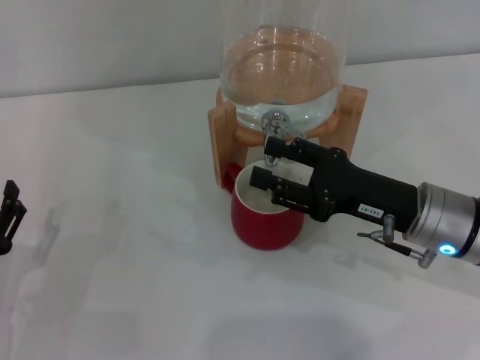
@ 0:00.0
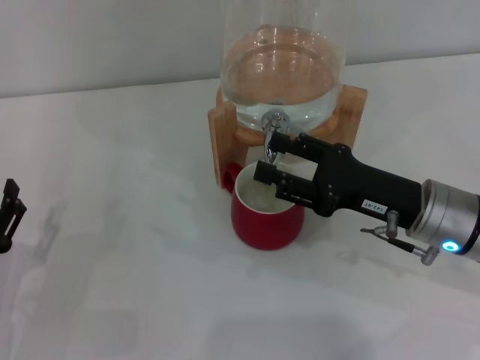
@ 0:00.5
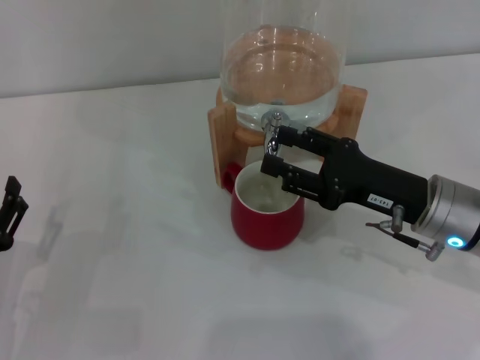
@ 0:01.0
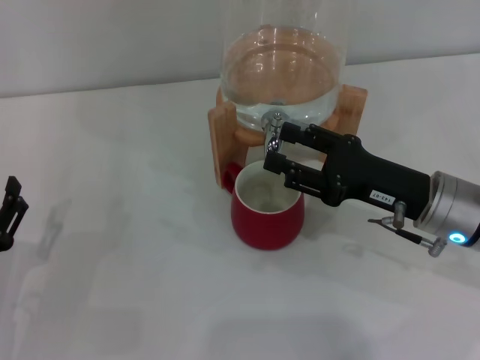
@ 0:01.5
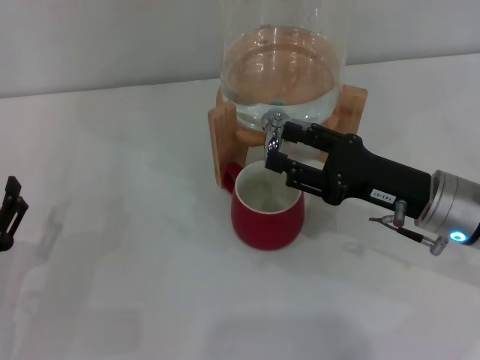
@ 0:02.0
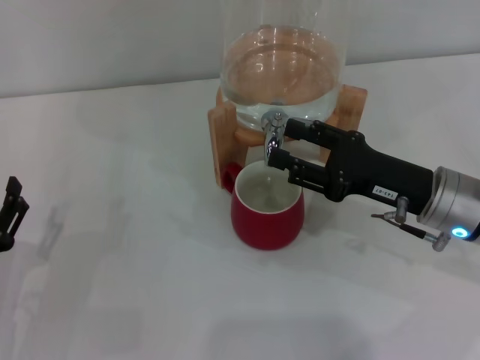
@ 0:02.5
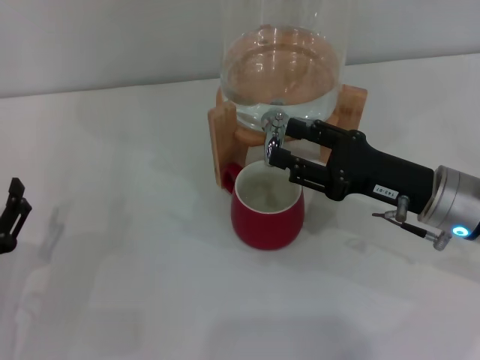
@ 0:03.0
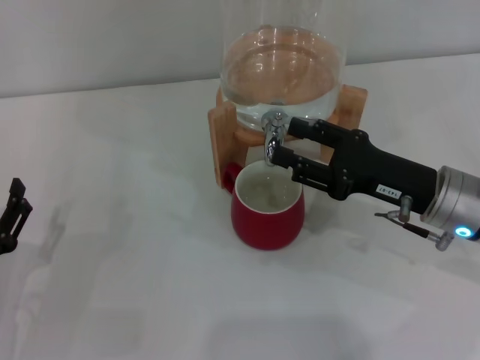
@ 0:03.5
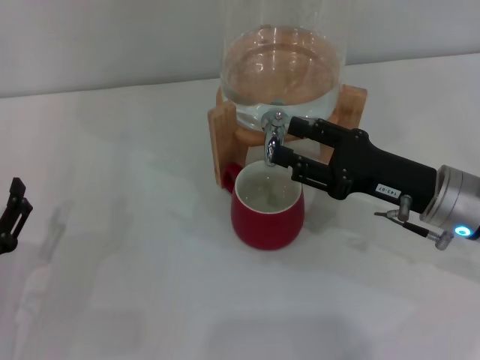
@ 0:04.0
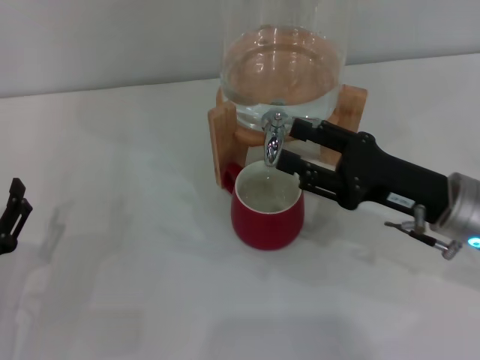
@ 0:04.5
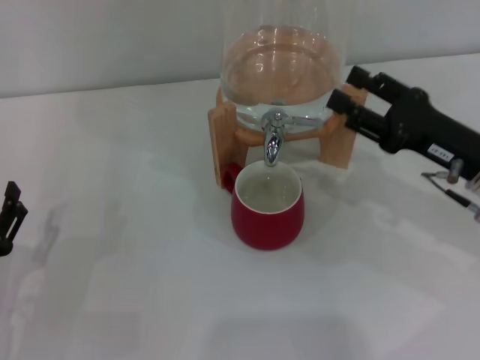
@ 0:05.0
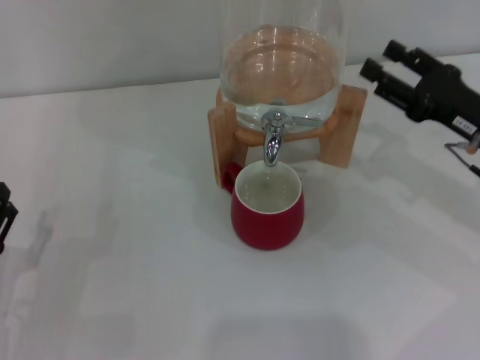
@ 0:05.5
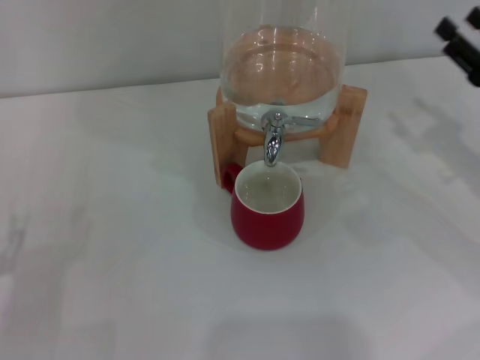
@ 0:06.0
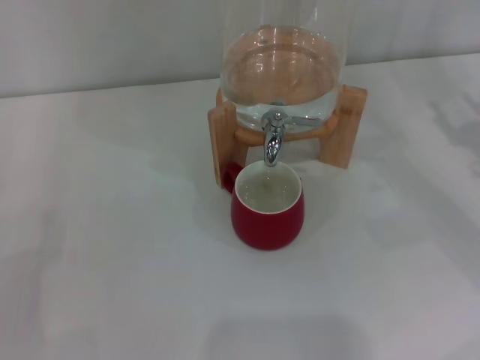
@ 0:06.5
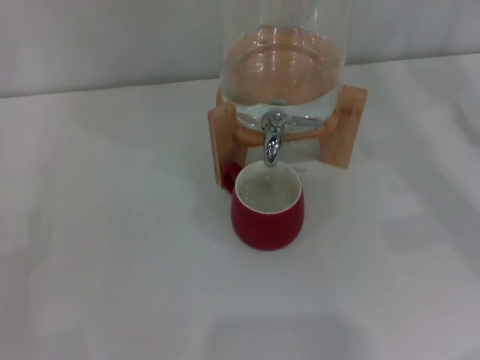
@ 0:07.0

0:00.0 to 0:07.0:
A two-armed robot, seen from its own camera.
Task of the whole recording: the left gripper pick up the red cup and place it horizontally under the faucet, the right gripper turn on the faucet to fill the cup, and then turn off the faucet.
Step, 0:00.0 to 0:04.0: Close the dispenser valve with the right gripper.
0:00.0 to 0:02.0: The grippers move only a little.
0:02.0 to 0:03.5: Both grippers stay about where they are.
0:03.5 to 0:05.0: The grippers move only a little.
0:05.0 to 0:07.0: The right gripper moves to the right, approximately 10 cm.
